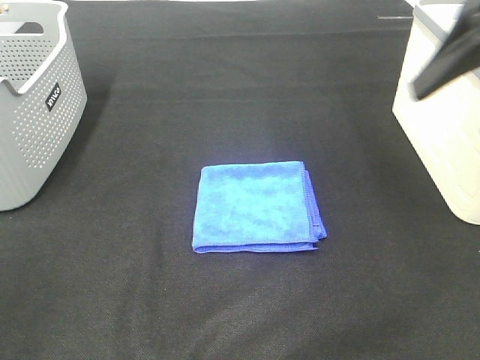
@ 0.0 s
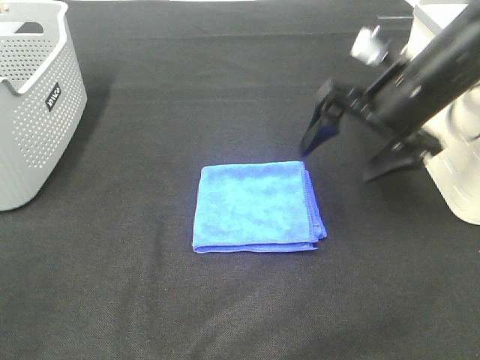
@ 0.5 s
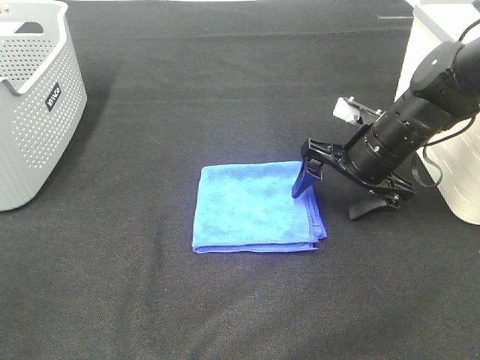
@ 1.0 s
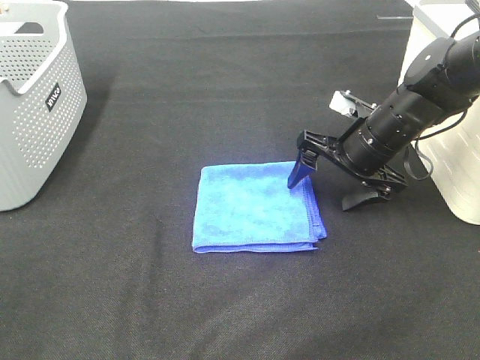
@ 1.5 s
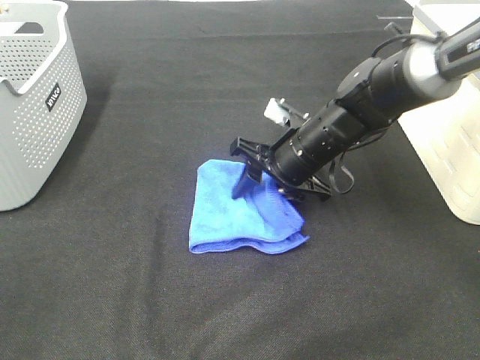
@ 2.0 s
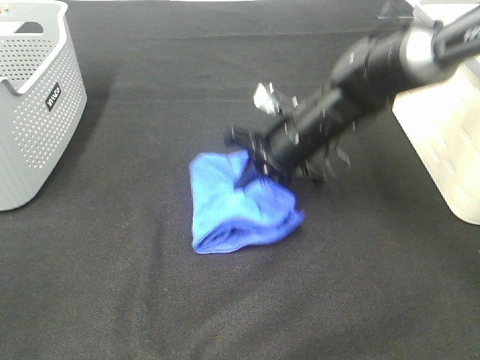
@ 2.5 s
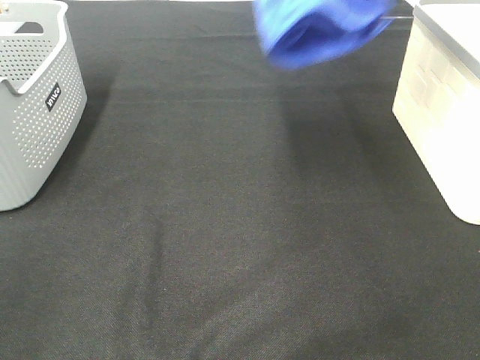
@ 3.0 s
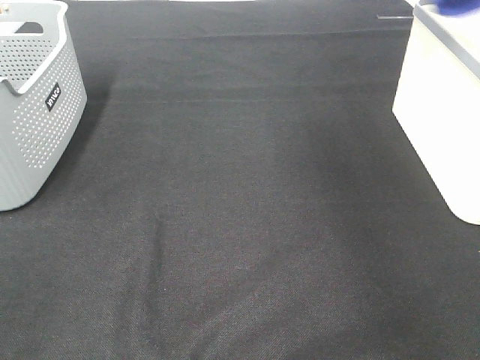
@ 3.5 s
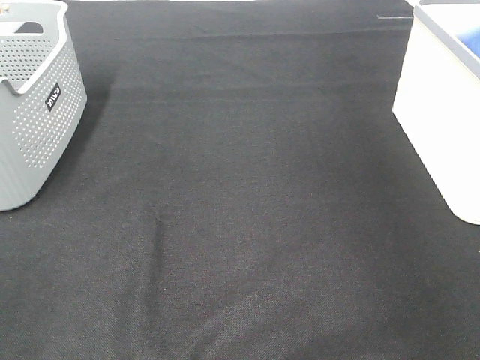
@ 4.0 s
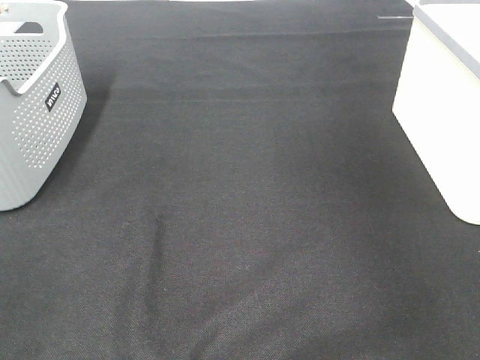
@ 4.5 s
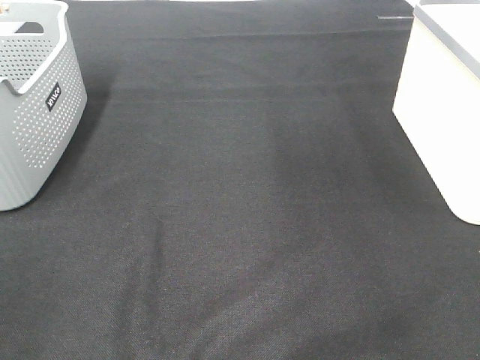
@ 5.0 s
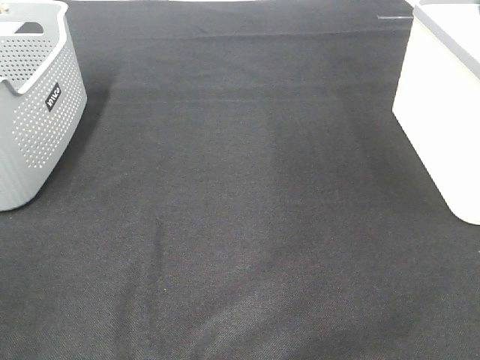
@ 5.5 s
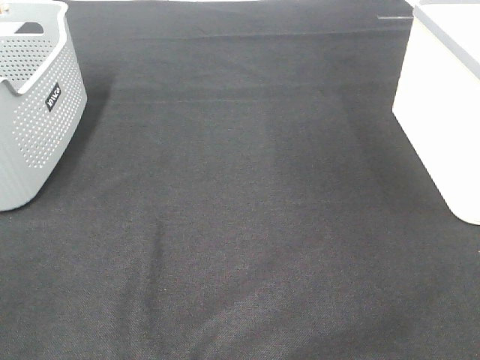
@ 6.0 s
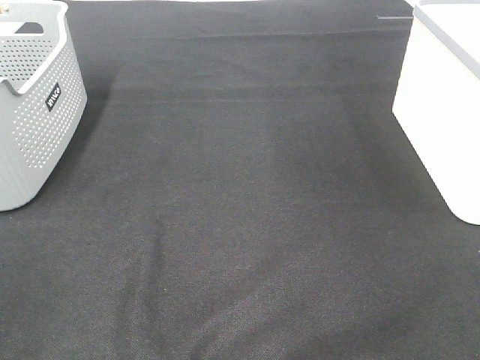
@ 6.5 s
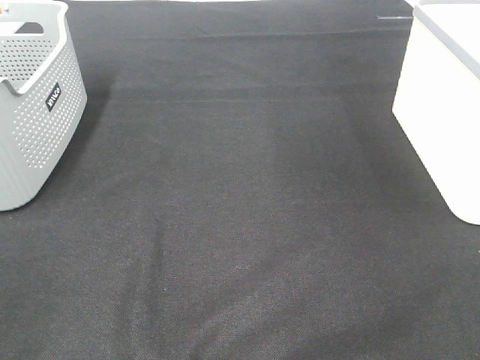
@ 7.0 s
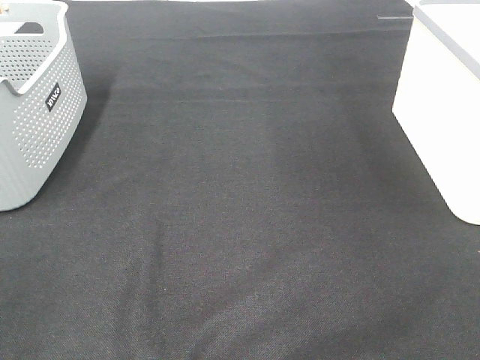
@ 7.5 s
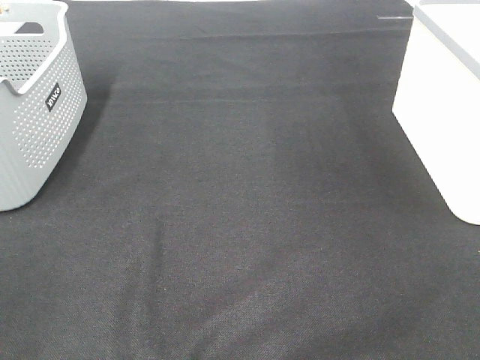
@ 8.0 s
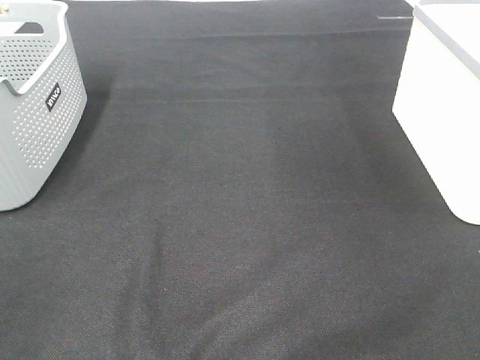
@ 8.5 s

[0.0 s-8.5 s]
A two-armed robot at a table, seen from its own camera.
Step, 0.0 to 2.0 s: Right hand: grab the folded blue towel.
Step, 2.5 to 4.0 s: Right hand: place the blue towel in right basket.
0.0 to 2.0 s: The right gripper travels downward, to the left and forward by about 30 cm, and closes up.
2.0 to 4.0 s: The right gripper goes some 40 cm to the right and upward, and opens up.
4.0 to 6.5 s: The right gripper shifts some 40 cm backward.

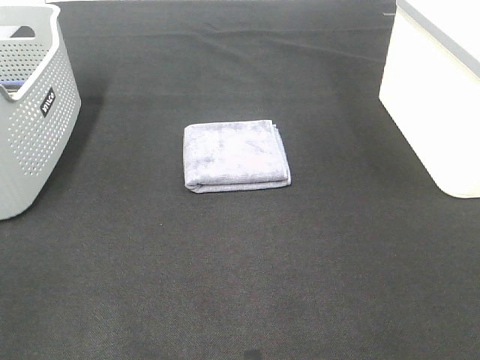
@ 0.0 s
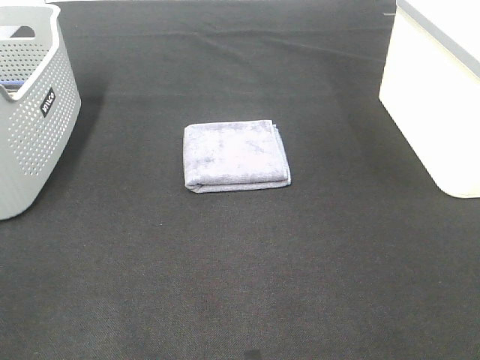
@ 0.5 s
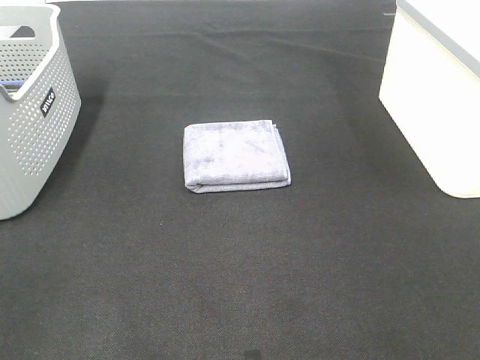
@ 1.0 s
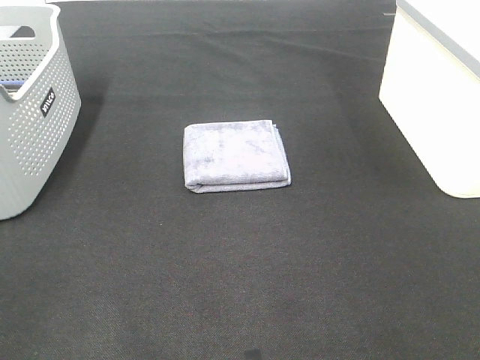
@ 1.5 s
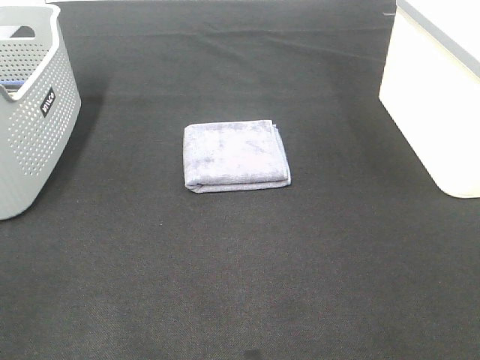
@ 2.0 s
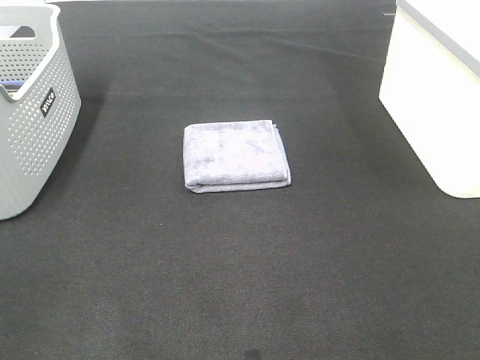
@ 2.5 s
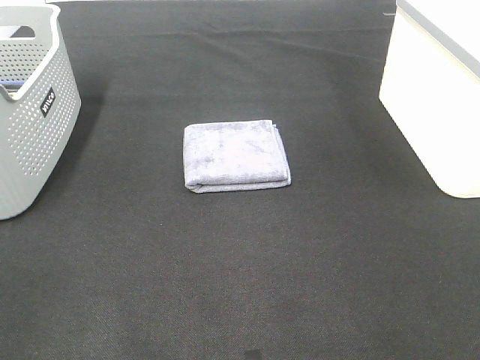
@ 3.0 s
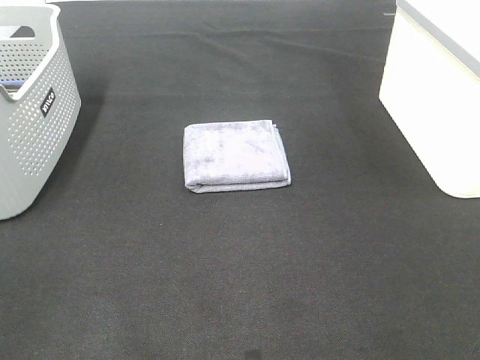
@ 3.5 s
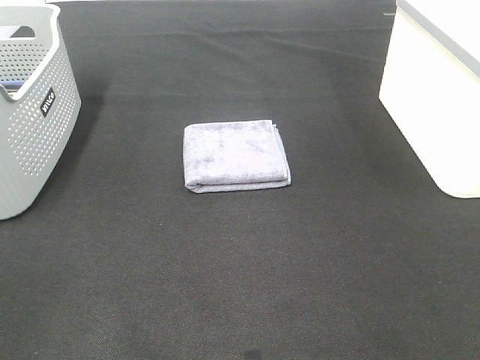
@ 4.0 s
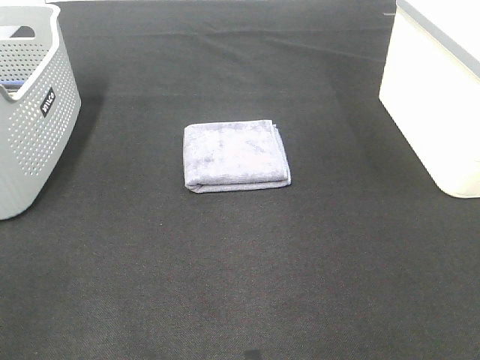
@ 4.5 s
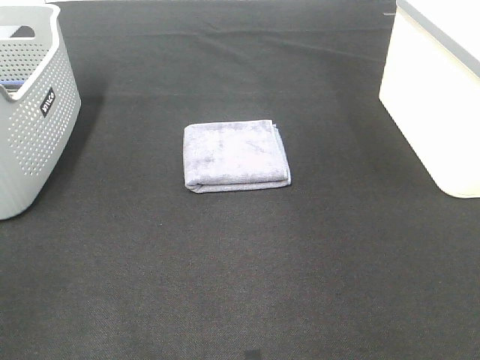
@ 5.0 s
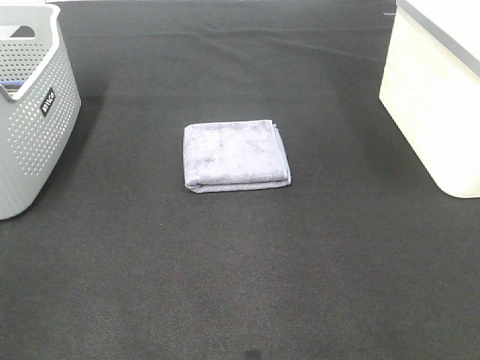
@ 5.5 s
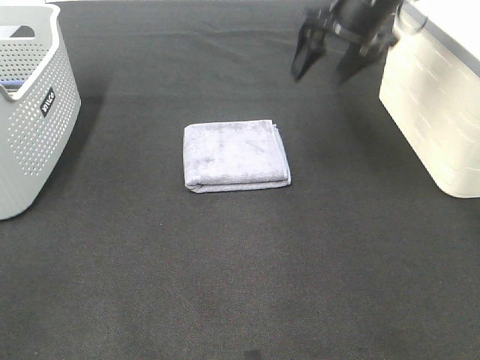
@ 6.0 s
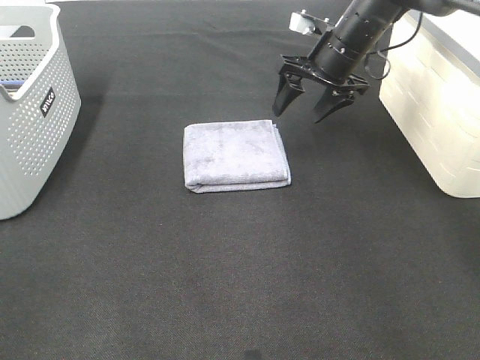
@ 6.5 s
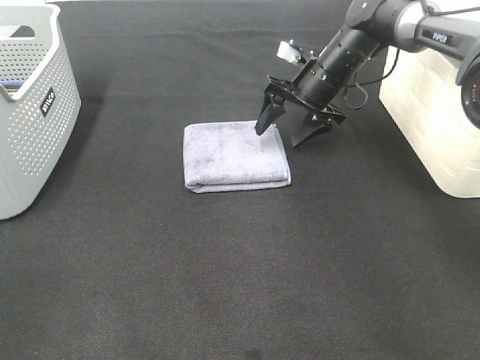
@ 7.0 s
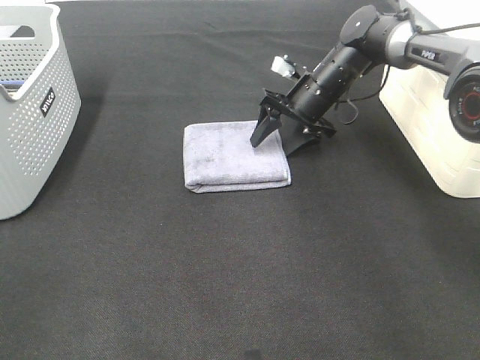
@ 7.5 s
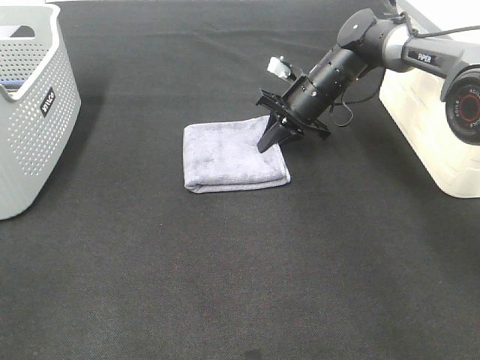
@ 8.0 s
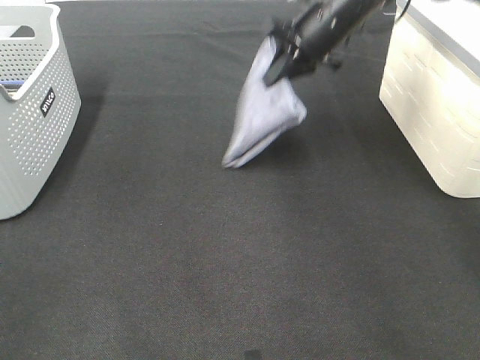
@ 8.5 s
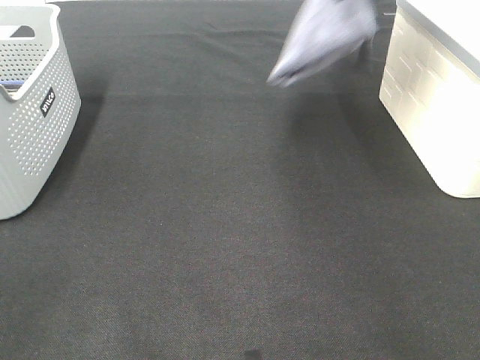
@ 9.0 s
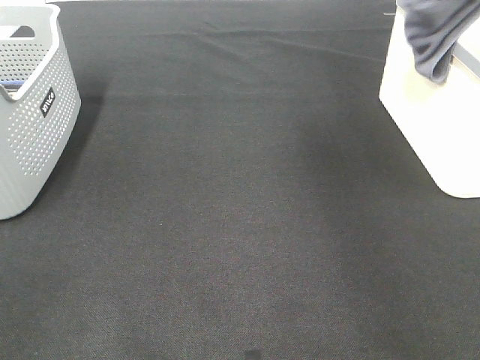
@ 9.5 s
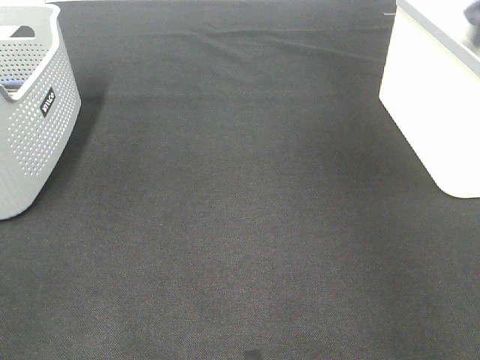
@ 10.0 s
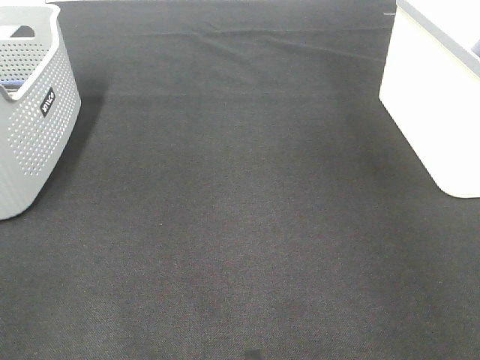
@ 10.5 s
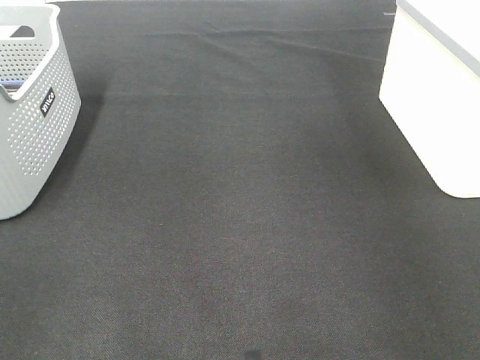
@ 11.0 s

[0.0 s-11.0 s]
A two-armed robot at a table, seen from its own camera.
Step, 0.0 to 7.5 s: Right hand: grab the folded grey towel.
Step, 8.0 to 11.0 s: Right hand: place the grey towel in right basket.
0.0 to 3.5 s: Neither gripper changes place.
5.5 to 7.5 s: The right gripper is displaced downward by about 25 cm.
7.5 to 9.0 s: The right gripper moves upward, roughly 25 cm, and closes up.
9.0 to 11.0 s: The right gripper goes roughly 20 cm to the right, and opens its fingers.
